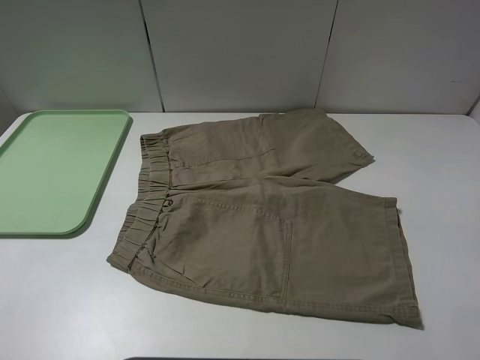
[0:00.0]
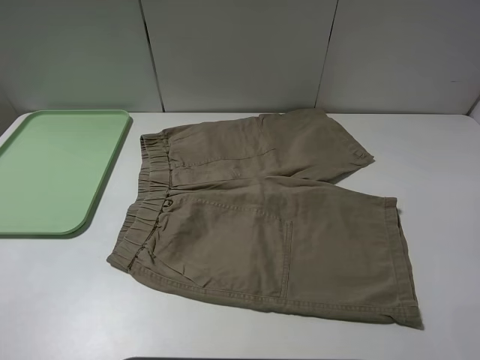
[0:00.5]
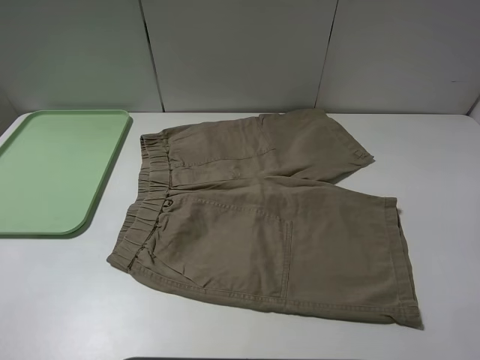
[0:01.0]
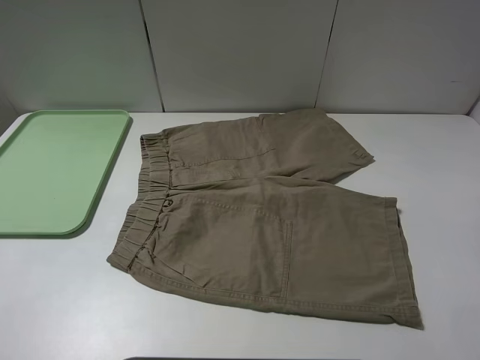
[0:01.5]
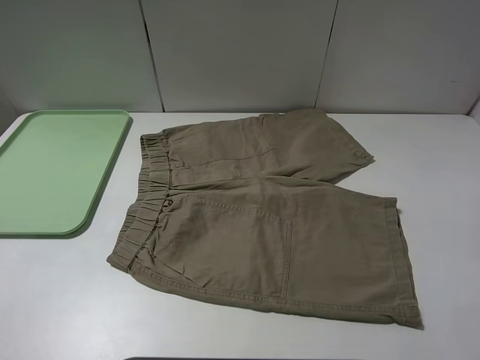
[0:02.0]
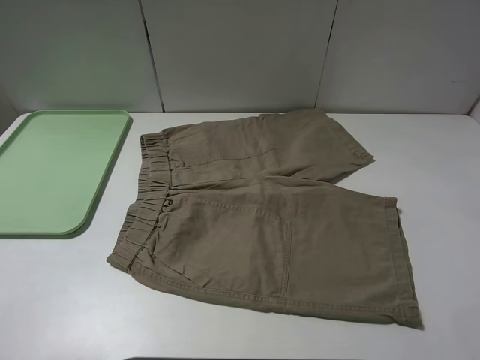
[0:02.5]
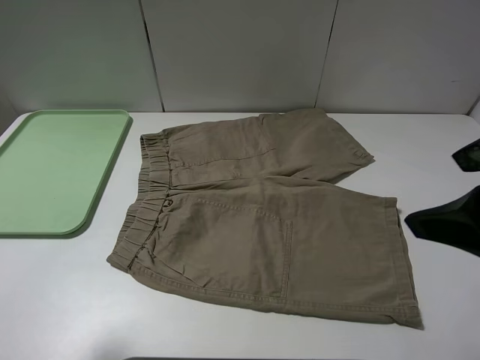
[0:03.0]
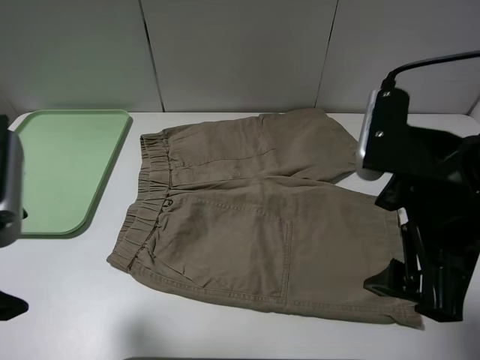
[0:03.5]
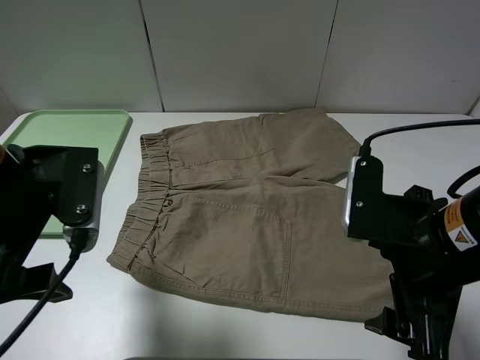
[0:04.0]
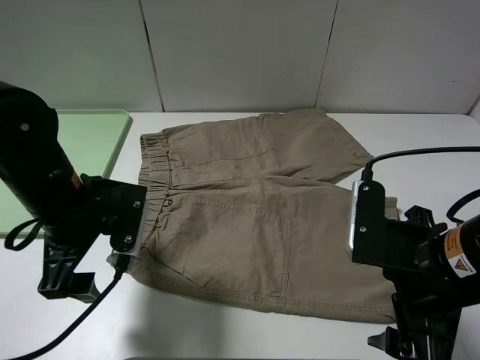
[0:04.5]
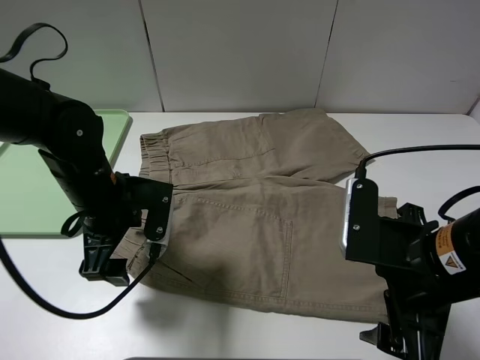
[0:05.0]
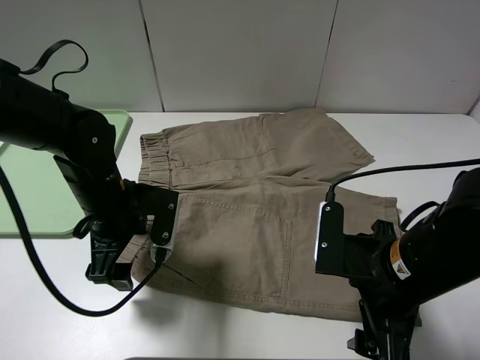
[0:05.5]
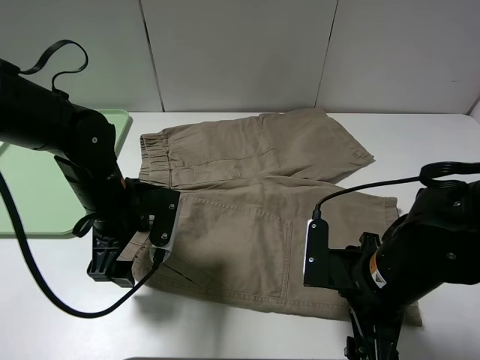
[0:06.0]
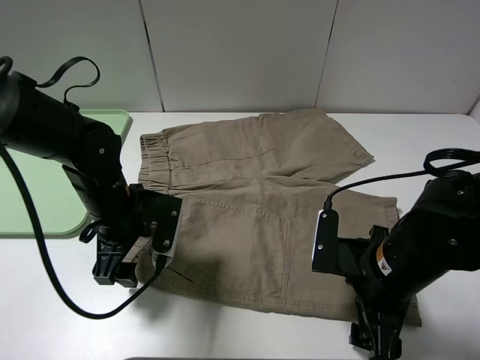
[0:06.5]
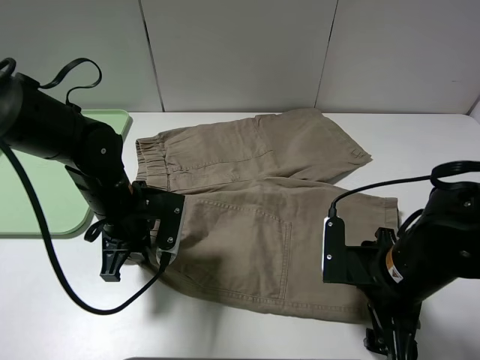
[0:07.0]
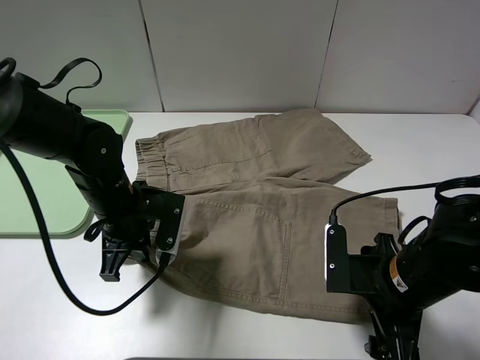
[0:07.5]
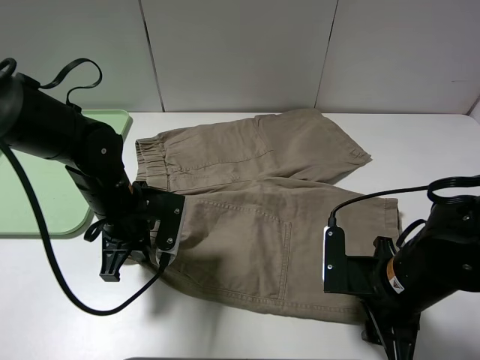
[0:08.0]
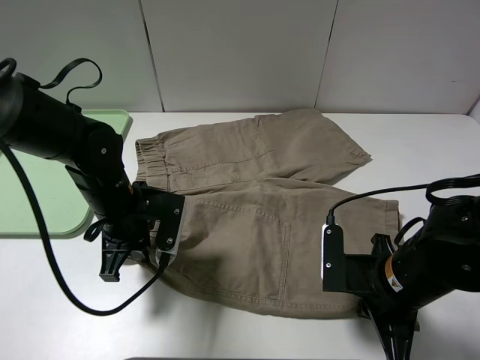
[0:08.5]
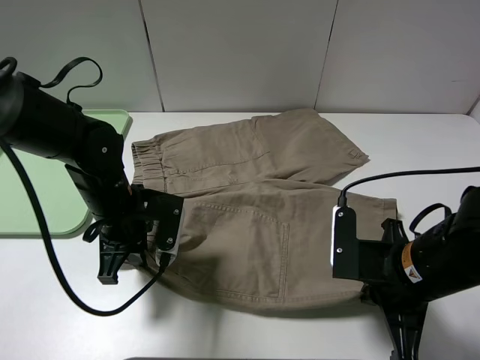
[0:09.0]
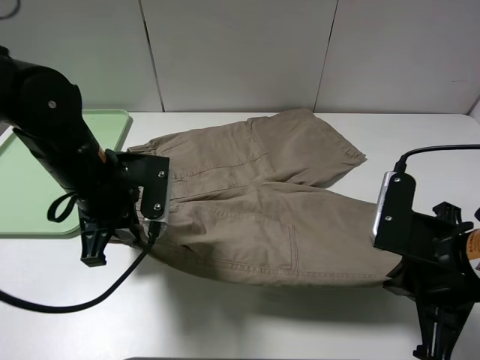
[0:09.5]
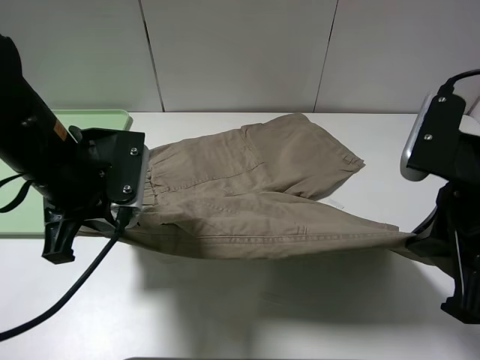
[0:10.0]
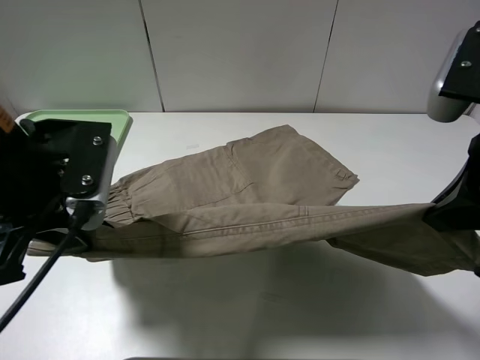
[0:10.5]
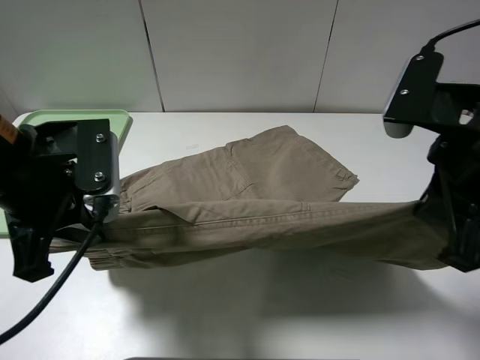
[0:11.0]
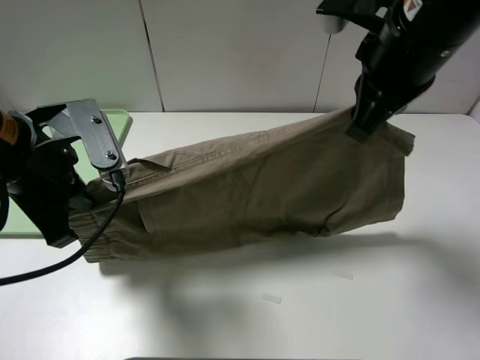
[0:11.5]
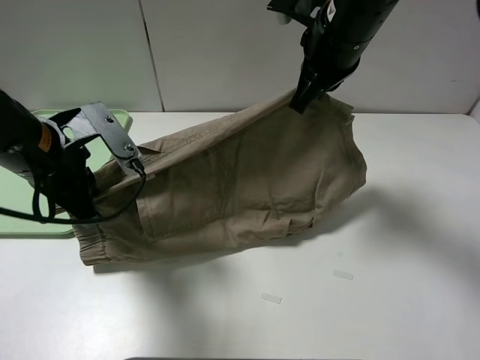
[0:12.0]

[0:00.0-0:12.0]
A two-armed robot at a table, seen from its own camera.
Task of the whole recording: fold the khaki jeans in half with two grippers, then fold them in half again, and use the left claw to place the folded fold khaki jeans on the tray.
Step, 0:00.0 to 0:07.0: Grasp the khaki trousers with the left gripper.
Step, 0:07.5 to 0:08.0: Grasp the khaki trousers with the right gripper.
0:00.0 to 0:02.0: Both grippers stay put.
0:02.0 to 0:04.0: The left gripper is displaced forward and to the right by roughly 20 cm, while the right gripper goes about 20 cm forward, to the left and downward.
0:04.0 to 0:06.0: The left gripper shifts roughly 15 cm downward and forward, while the right gripper is displaced downward by approximately 10 cm.
0:06.0 to 0:08.0: The right gripper closes its fingers. The left gripper closes up.
0:08.0 to 0:10.0: Both grippers move upward, approximately 15 cm. The right gripper closes its fingers.
0:10.0 to 0:12.0: The right gripper travels forward and to the left by roughly 25 cm.

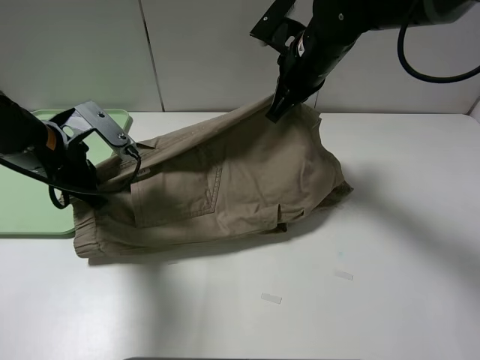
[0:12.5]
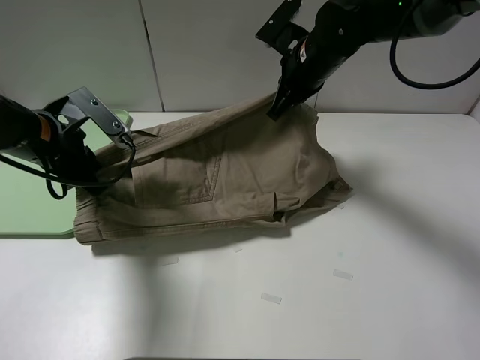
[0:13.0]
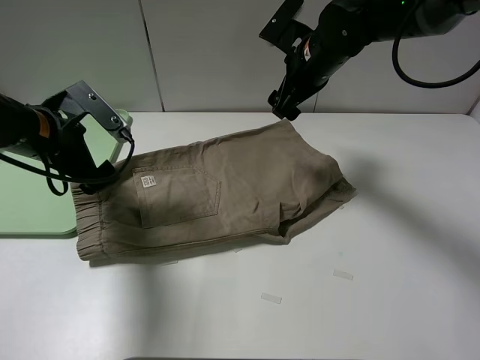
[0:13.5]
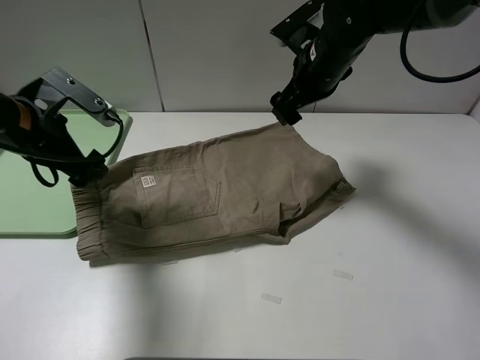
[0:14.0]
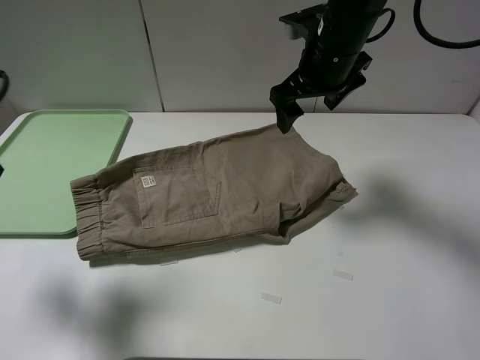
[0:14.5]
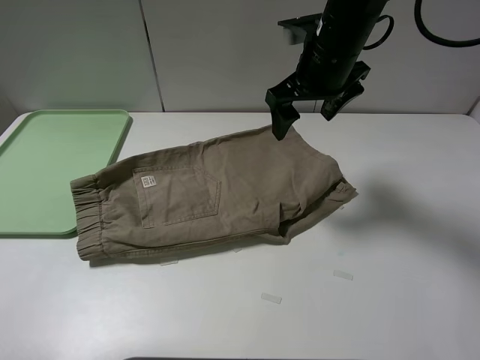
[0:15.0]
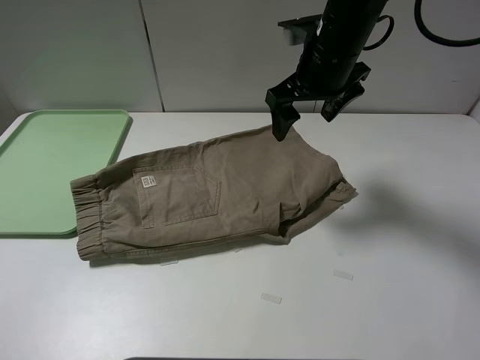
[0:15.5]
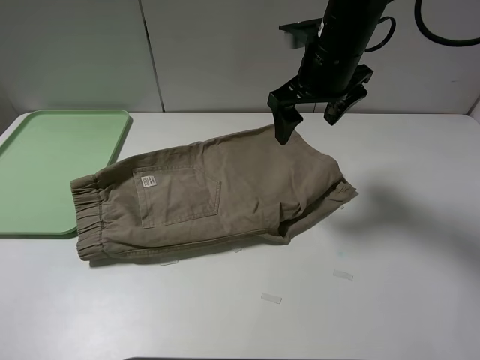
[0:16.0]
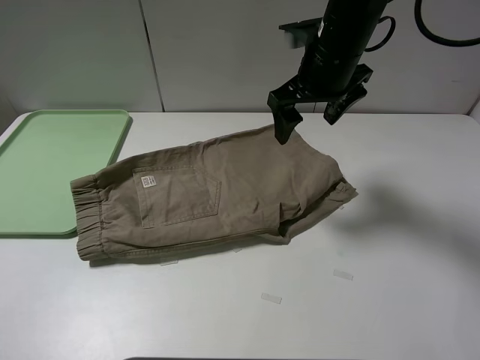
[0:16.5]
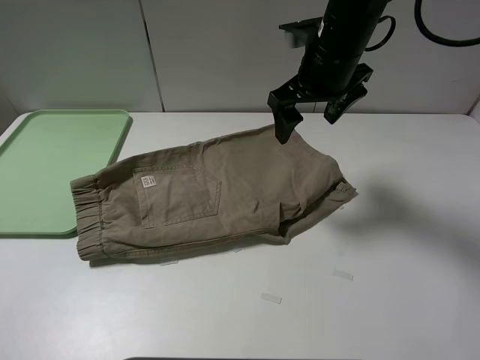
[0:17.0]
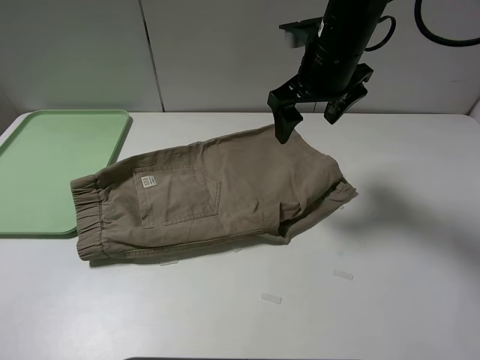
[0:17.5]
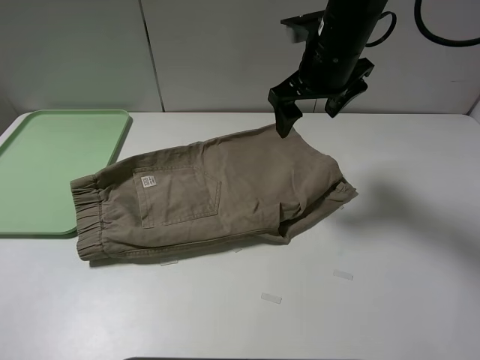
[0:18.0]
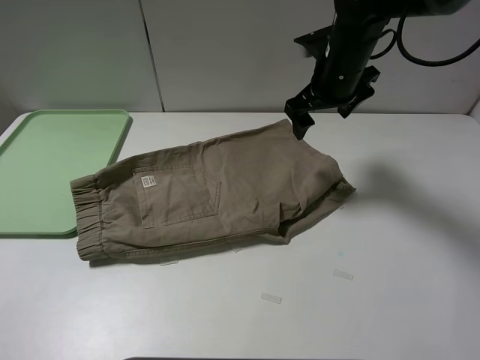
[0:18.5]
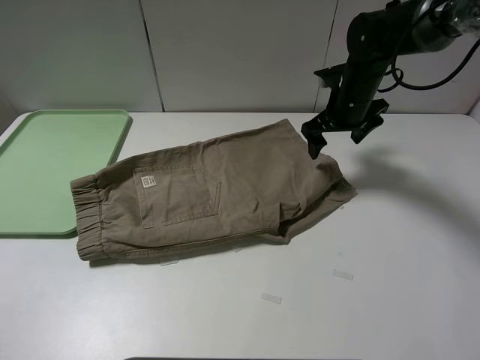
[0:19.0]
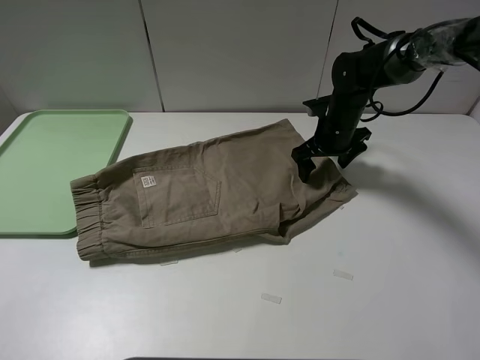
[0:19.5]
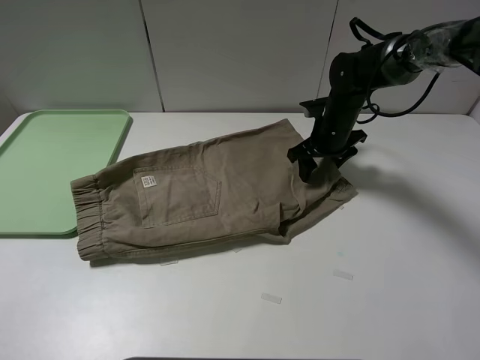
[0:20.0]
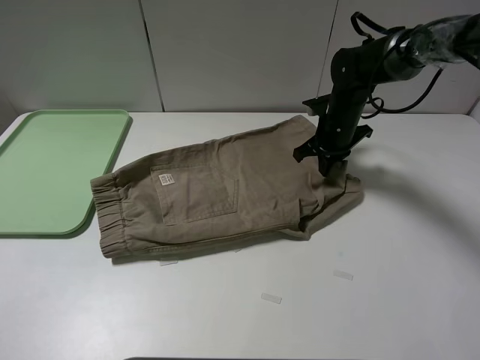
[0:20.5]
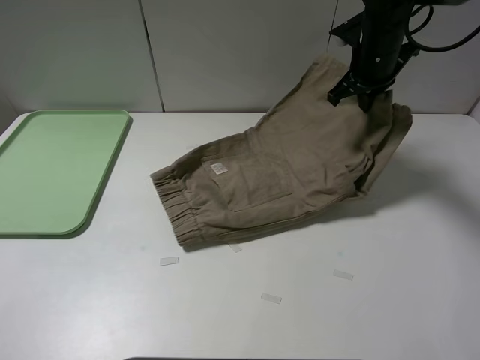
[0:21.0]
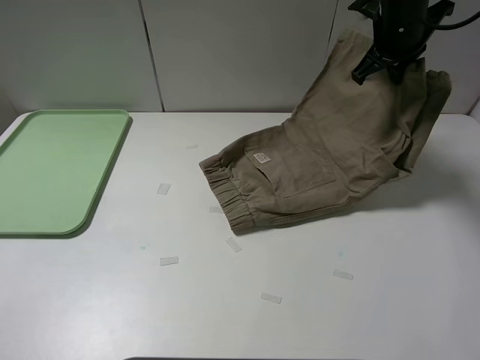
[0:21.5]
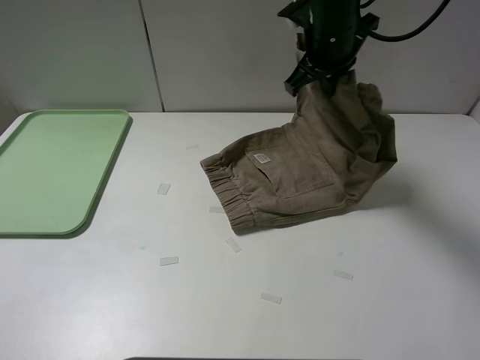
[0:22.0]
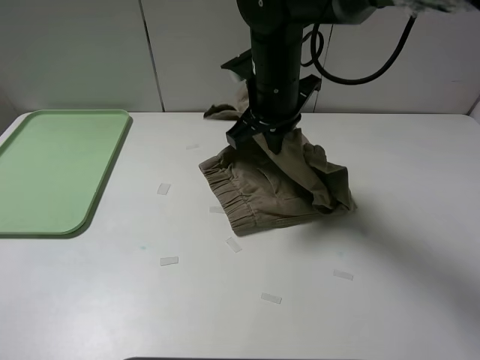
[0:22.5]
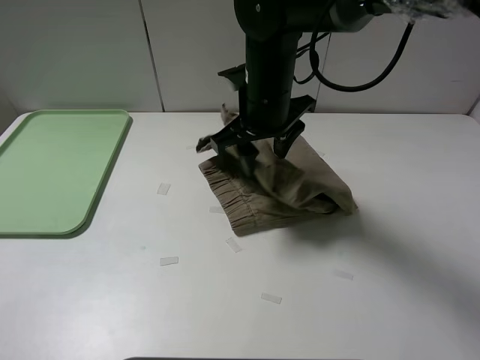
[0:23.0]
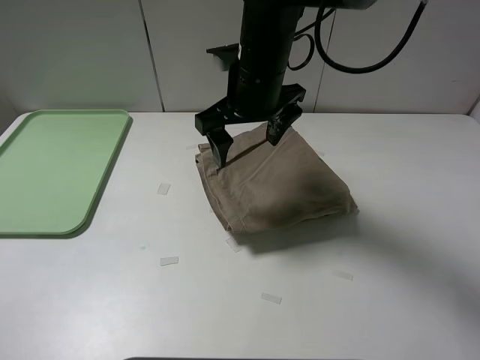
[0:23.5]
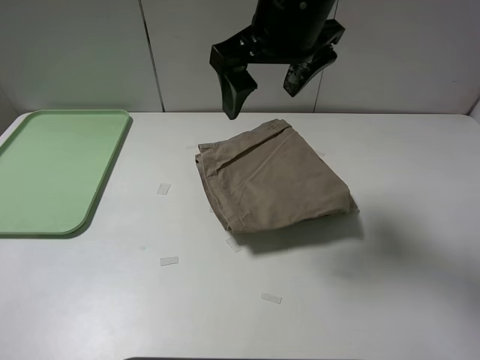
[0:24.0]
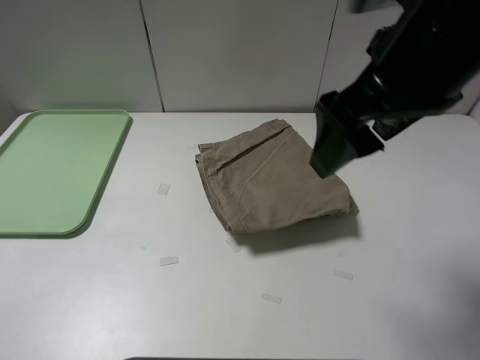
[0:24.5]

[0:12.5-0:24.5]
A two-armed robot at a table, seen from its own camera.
Task of the whole recording: fold the khaki jeans in half with two grippers, then fold them in half again, and use the left claw to place the folded fold khaki jeans on the tray.
Step, 0:13.5 to 0:20.0: Grasp the khaki trousers with the right gripper.
Step, 0:20.5 to 0:23.0: Fold the khaki trousers from right to left with the right gripper.
0:12.5 to 0:14.5: The right gripper opens. The left gripper goes about 15 cm upward, backward and to the left, and opens.
0:14.5 to 0:16.5: The left gripper is displaced backward by about 15 cm.
0:16.5 to 0:18.5: The right gripper changes place by about 5 cm.
0:18.5 to 0:20.5: The right gripper travels downward by about 10 cm, and closes.
0:20.5 to 0:22.5: The right gripper moves to the left, upward and backward, some 20 cm.
0:22.5 to 0:24.5: The right gripper is displaced backward, upward and to the right by about 20 cm, and opens up.

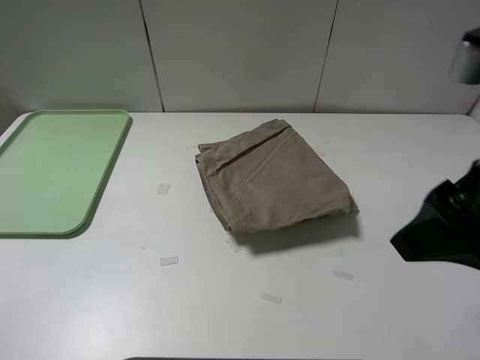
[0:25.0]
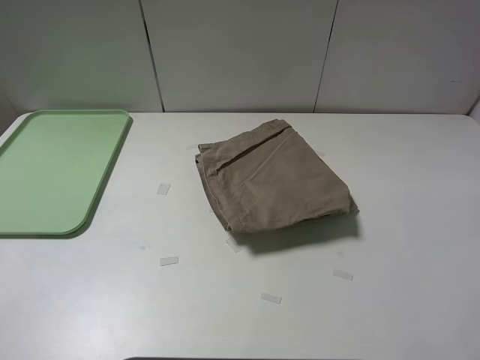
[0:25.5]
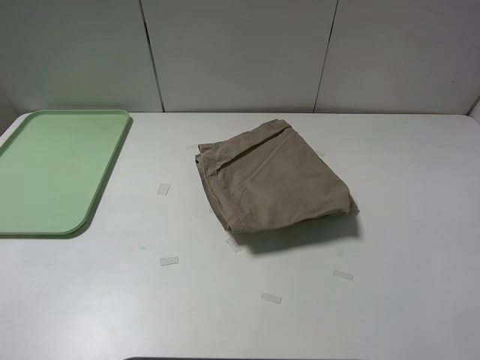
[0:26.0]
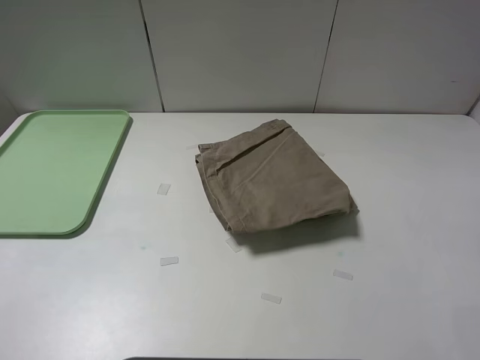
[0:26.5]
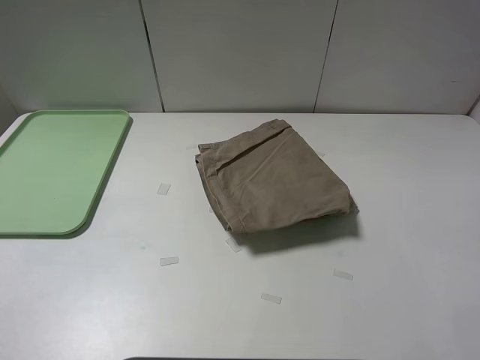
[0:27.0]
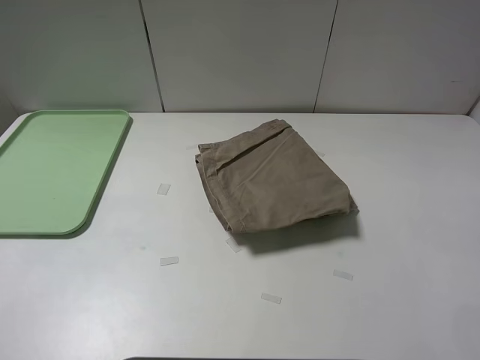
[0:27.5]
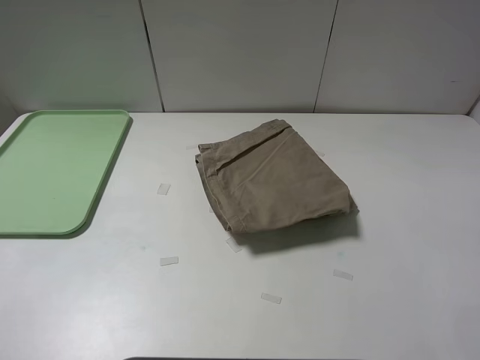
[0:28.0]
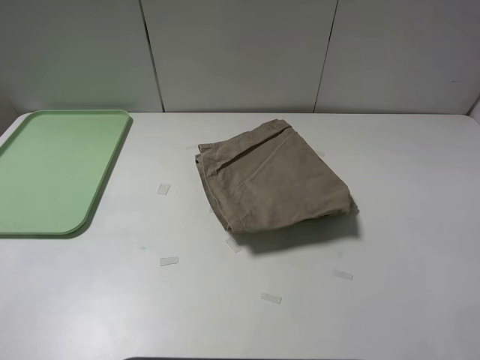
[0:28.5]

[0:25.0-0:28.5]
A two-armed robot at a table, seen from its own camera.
Task of the whole recording: fold the khaki jeans in half with two grippers, then fold them in half again, and use the left claw to place the folded fold khaki jeans on the tray.
0:25.0 to 0:27.0: The right gripper shifts roughly 15 cm backward and to the right.
0:27.0 to 0:28.5: Both grippers stay about where they are.
